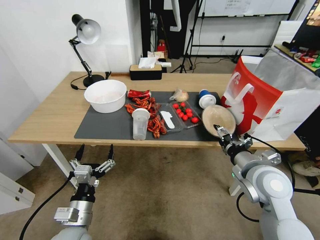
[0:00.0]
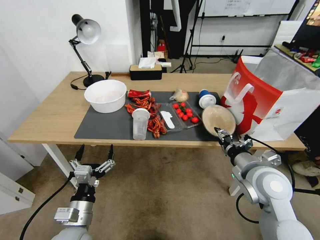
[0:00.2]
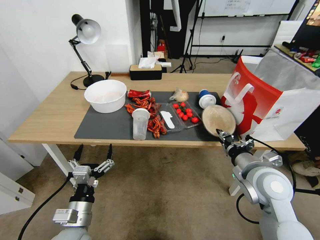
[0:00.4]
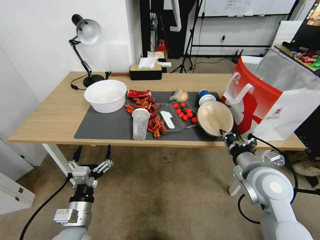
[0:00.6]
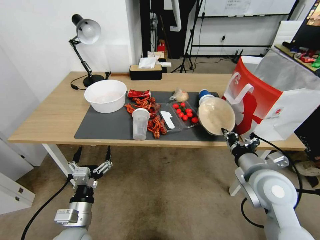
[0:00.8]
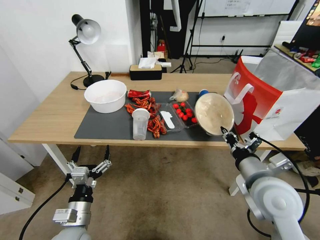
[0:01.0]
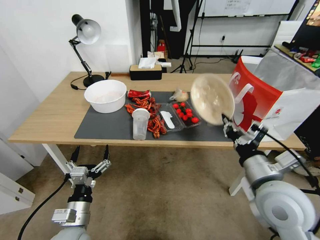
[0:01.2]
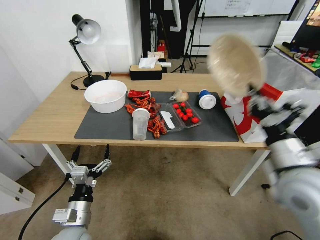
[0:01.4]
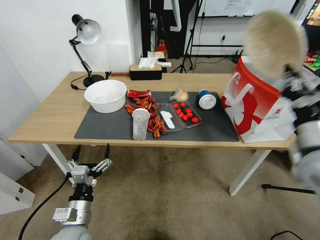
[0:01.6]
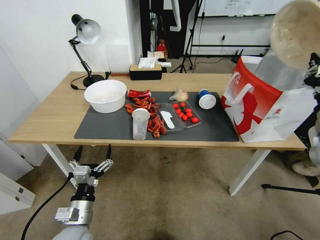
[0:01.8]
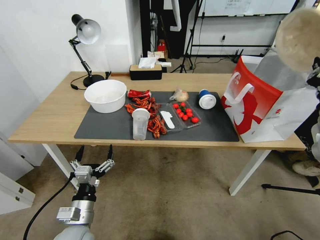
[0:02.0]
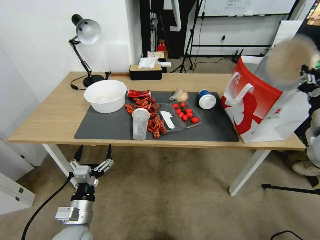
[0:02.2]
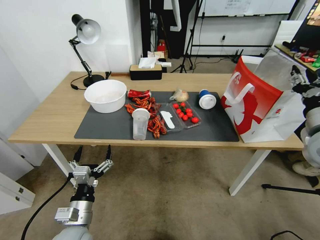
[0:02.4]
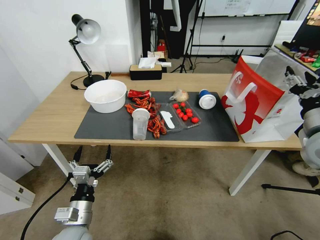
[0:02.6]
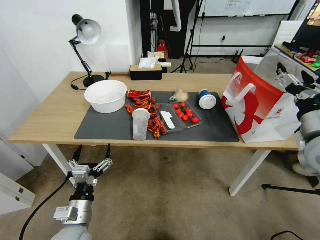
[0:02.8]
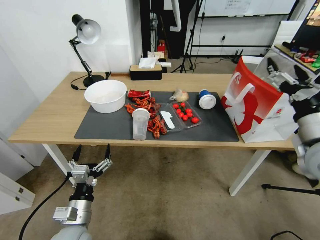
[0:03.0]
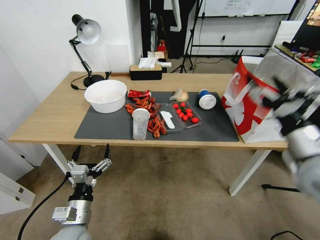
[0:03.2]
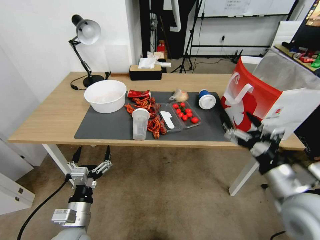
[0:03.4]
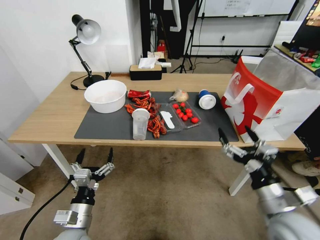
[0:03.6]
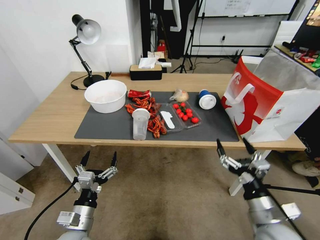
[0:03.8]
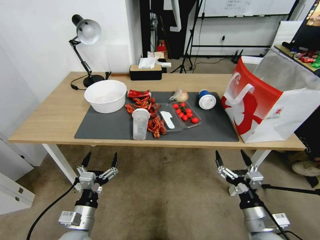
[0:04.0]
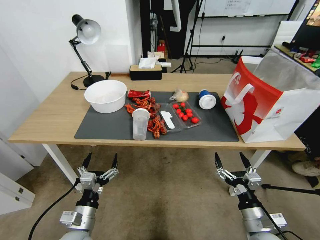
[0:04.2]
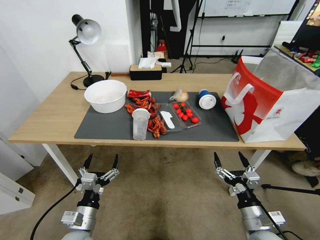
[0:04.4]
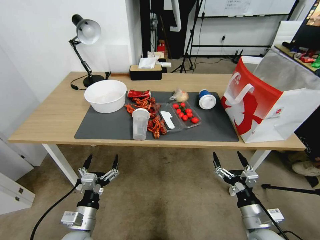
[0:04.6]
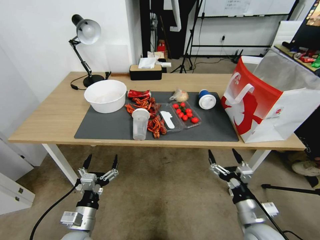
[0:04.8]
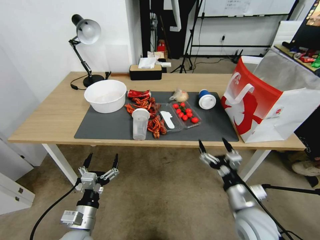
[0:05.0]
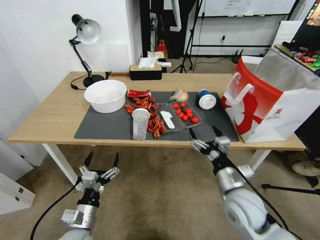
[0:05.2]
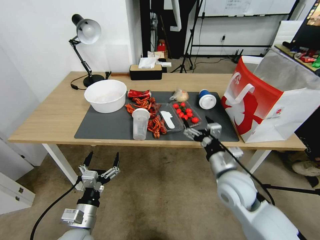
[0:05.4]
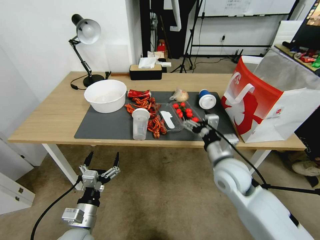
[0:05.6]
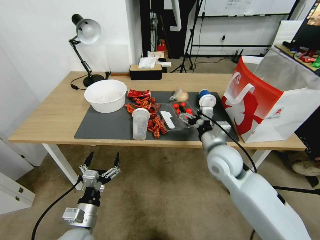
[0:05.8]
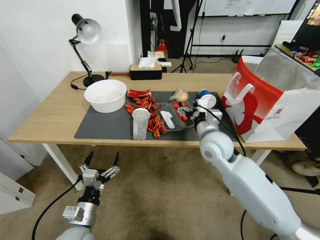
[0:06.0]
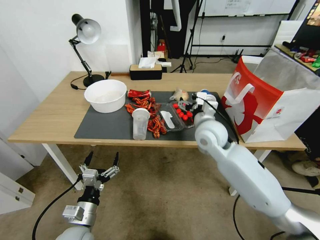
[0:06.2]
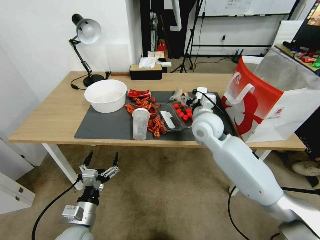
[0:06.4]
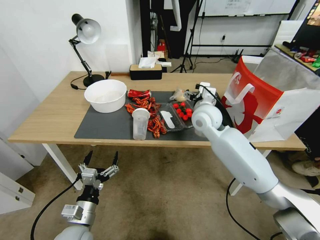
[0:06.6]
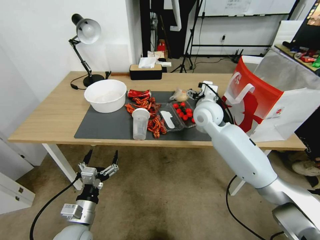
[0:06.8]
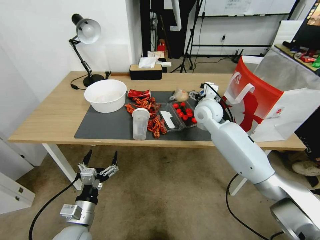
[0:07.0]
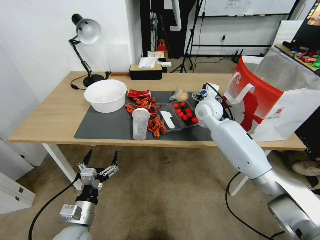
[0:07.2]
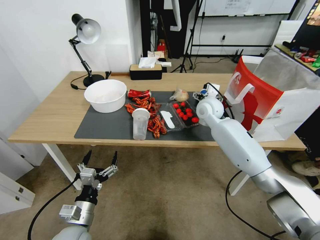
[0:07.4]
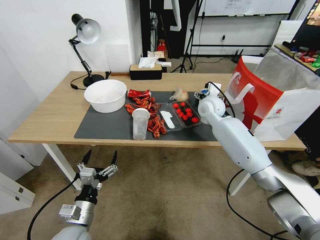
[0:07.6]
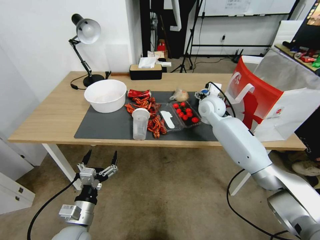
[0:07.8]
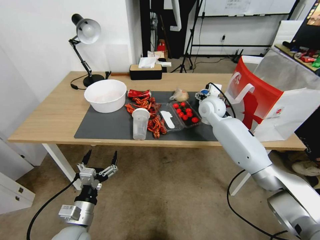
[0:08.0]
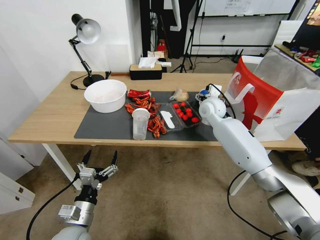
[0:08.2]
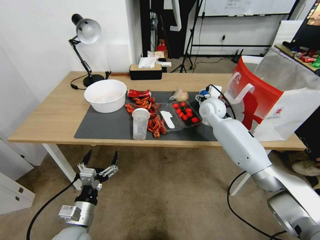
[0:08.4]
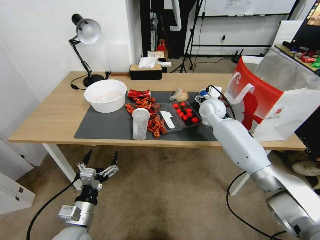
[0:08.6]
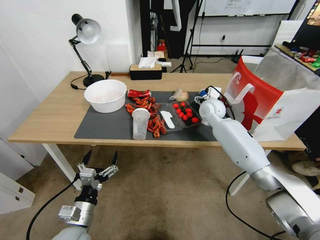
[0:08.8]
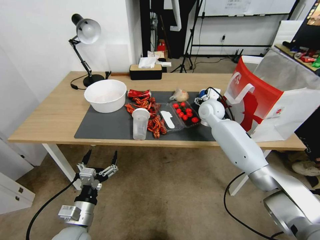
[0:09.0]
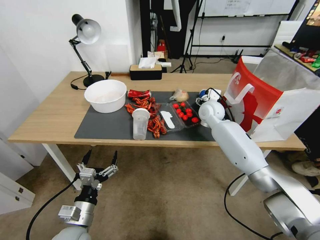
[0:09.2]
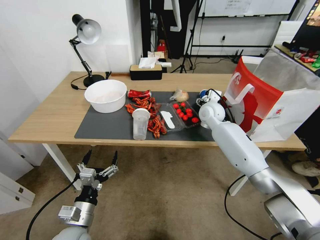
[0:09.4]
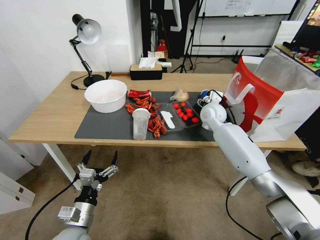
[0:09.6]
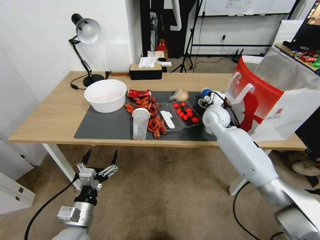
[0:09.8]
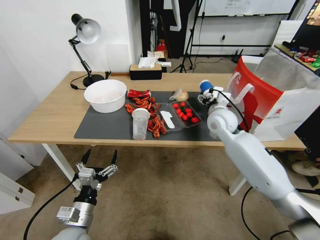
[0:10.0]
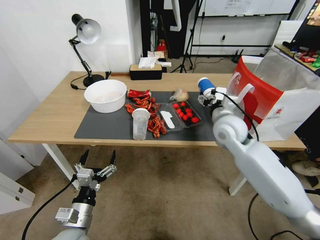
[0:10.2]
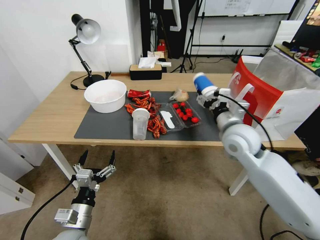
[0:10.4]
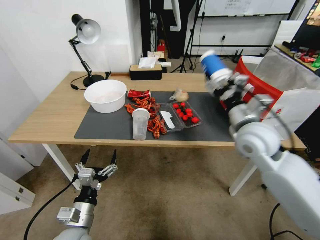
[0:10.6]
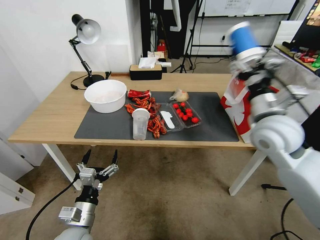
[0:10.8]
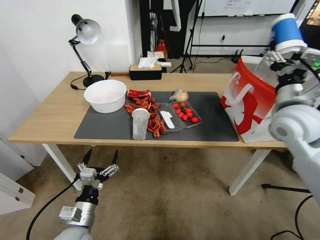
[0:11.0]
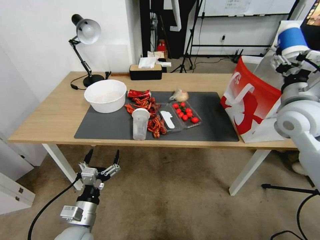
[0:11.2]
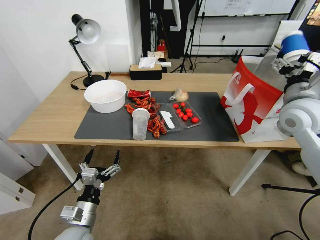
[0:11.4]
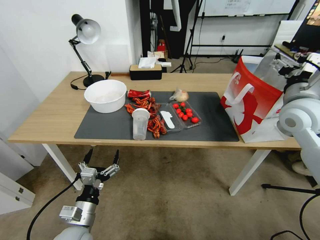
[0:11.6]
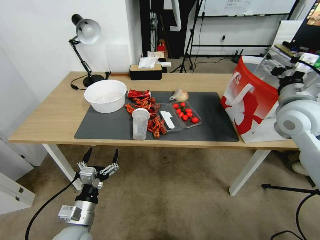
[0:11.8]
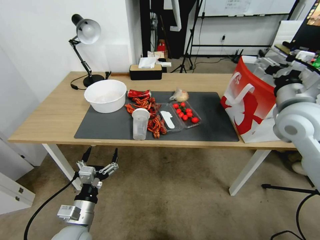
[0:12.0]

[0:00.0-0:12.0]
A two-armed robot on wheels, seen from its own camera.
0:00.0 to 0:01.6: The right gripper is displaced upward and to the right by some 10 cm, and closes its fingers.
0:01.6 to 0:03.0: The right gripper opens.
0:03.0 to 0:04.4: The right gripper travels downward and backward by some 30 cm.
0:04.4 to 0:06.0: The right gripper travels forward, upward and to the left by approximately 30 cm.
0:06.0 to 0:07.6: The right gripper shifts about 15 cm forward.
0:07.6 to 0:09.0: The grippers make only small movements.
0:09.0 to 0:10.4: The right gripper shifts approximately 20 cm backward.
0:10.4 to 0:12.0: The right gripper is displaced to the right and upward by some 15 cm.

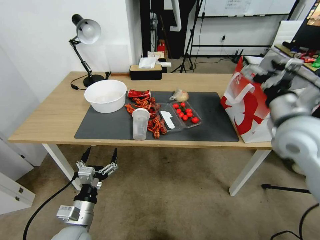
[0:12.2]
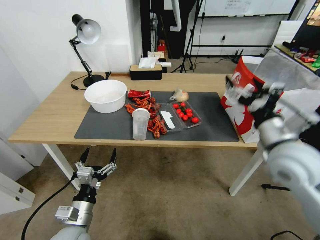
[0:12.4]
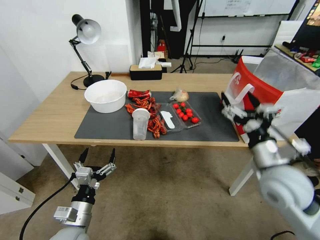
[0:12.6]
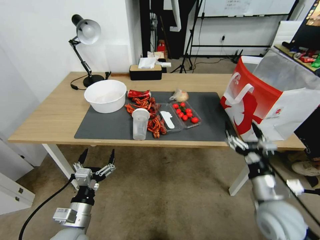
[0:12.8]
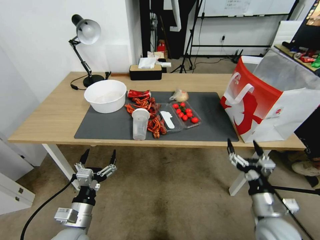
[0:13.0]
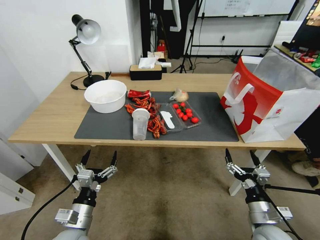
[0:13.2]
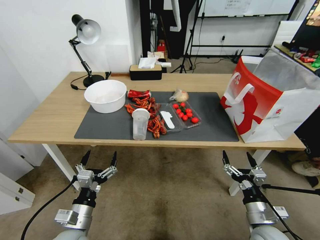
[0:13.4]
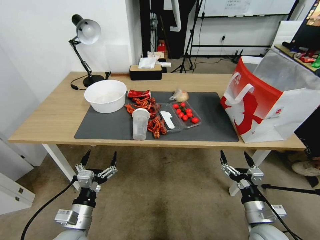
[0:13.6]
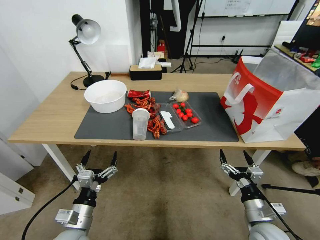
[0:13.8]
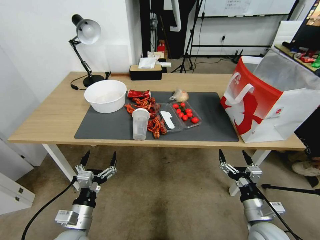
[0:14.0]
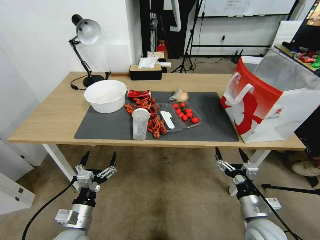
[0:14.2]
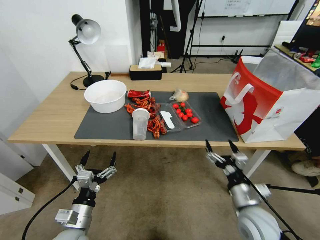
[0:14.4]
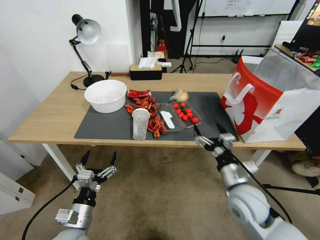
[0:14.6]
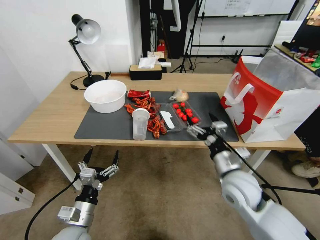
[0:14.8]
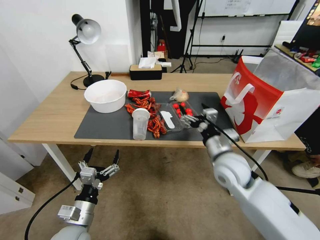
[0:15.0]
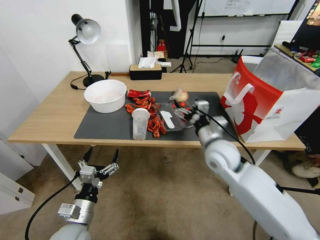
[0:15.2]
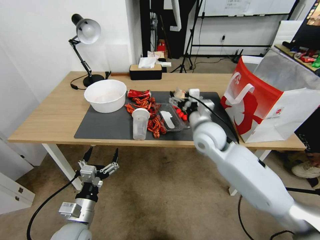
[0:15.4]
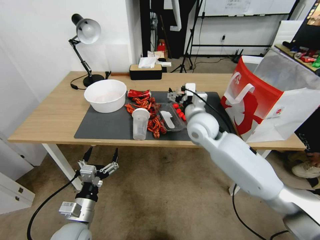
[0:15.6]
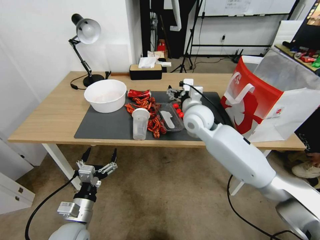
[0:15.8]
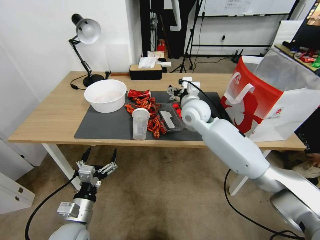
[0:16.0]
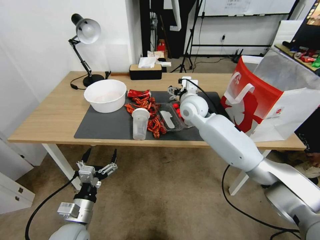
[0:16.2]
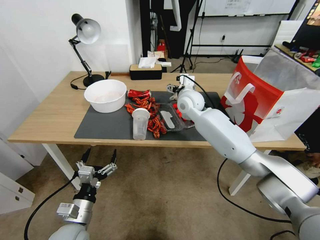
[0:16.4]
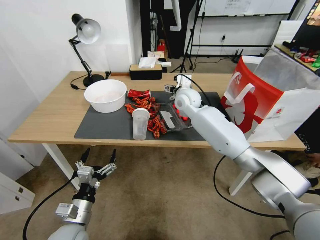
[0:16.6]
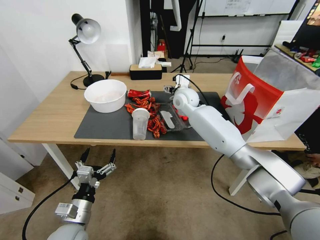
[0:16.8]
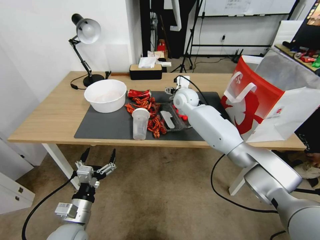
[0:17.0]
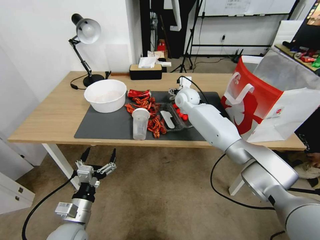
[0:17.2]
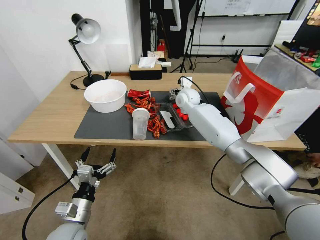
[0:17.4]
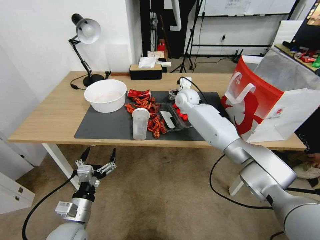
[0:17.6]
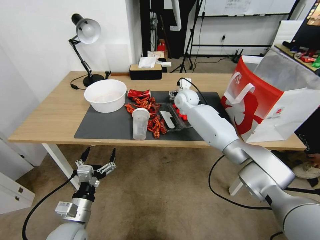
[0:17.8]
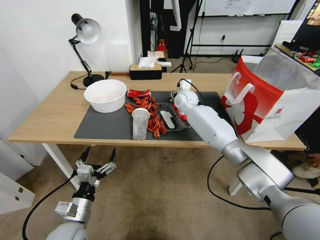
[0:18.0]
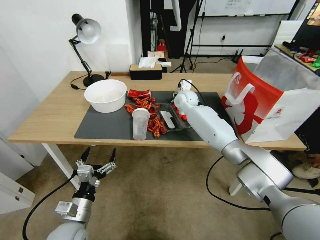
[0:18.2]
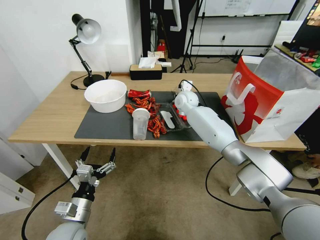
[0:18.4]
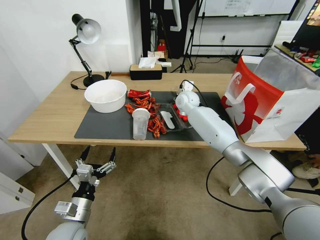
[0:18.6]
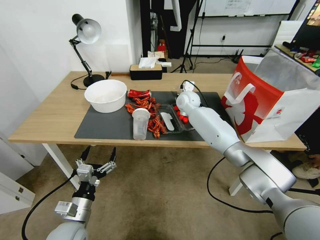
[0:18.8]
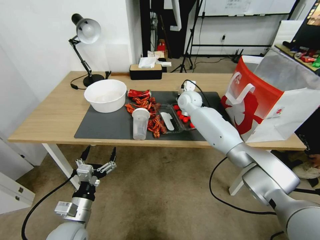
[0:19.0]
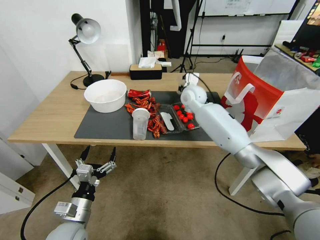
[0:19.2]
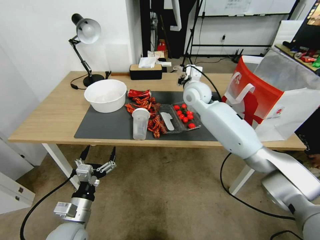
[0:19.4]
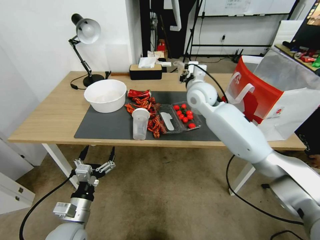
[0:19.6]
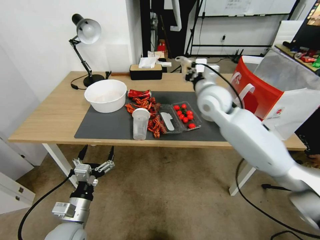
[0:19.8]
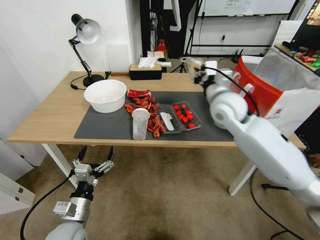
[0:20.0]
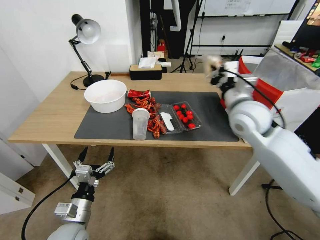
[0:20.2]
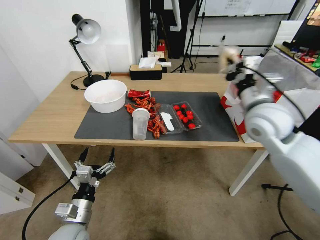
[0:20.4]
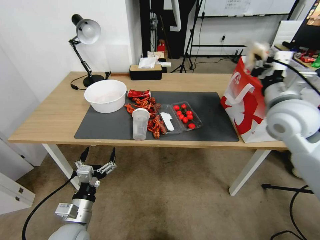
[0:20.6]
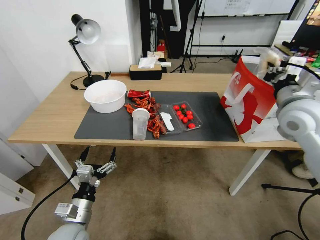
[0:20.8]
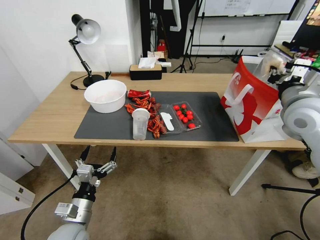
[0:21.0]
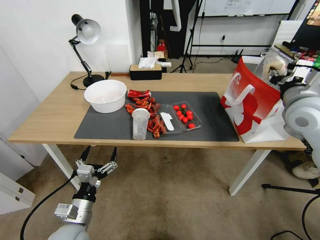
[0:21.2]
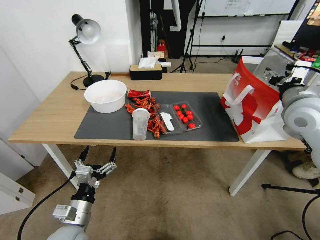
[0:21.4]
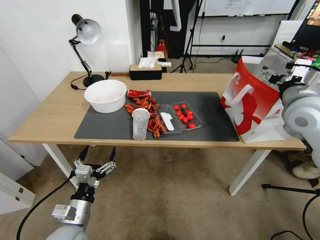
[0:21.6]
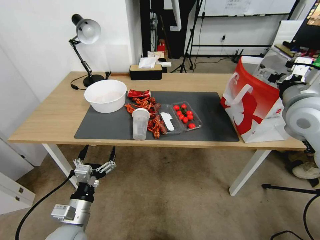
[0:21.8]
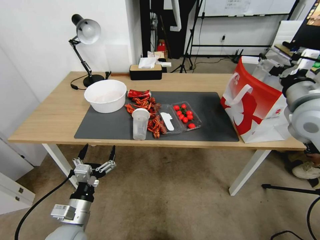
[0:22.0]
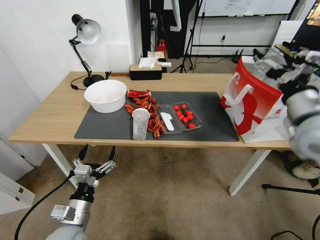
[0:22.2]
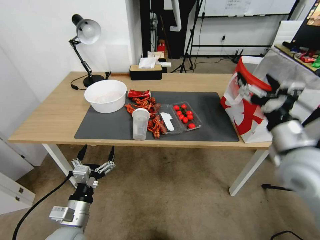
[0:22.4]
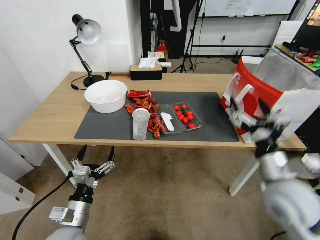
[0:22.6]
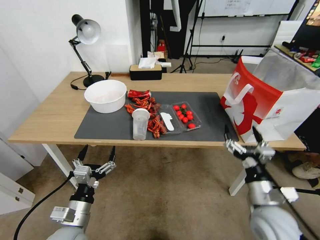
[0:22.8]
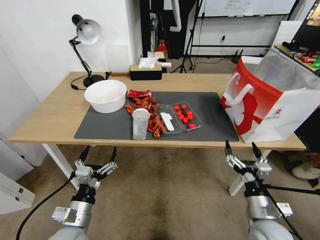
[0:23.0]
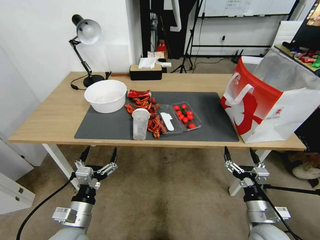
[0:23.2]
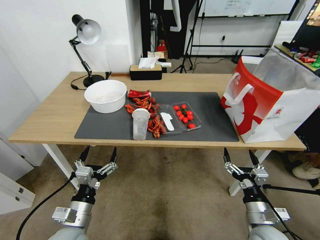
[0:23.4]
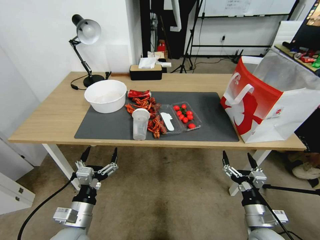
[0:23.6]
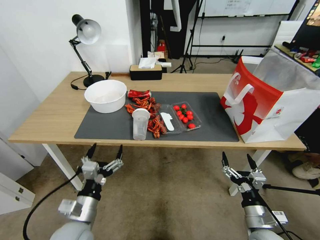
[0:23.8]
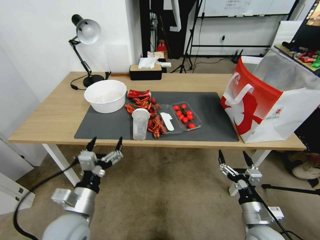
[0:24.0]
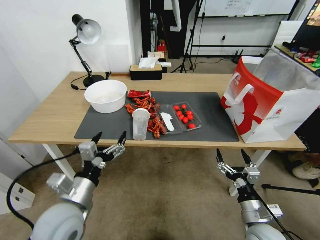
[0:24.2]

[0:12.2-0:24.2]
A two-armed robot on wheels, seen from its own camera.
0:12.2 to 0:13.8: The right gripper goes approximately 30 cm downward and backward.
0:13.8 to 0:15.2: The right gripper travels forward, upward and to the left by roughly 25 cm.
0:15.2 to 0:16.6: The right gripper travels forward by some 20 cm.
0:16.6 to 0:18.2: The right gripper is displaced forward by approximately 5 cm, and closes.
0:18.2 to 0:19.8: The right gripper is displaced backward and upward by approximately 15 cm, and closes up.
0:19.8 to 0:21.2: The right gripper is displaced to the right and backward by about 25 cm, and opens.
0:21.2 to 0:22.6: The right gripper heads backward, downward and to the left, covering approximately 20 cm, and opens.
0:22.6 to 0:24.2: The right gripper shifts some 15 cm downward. Meanwhile the left gripper moves upward, approximately 10 cm.
